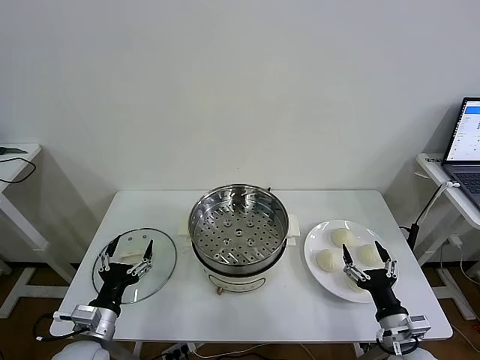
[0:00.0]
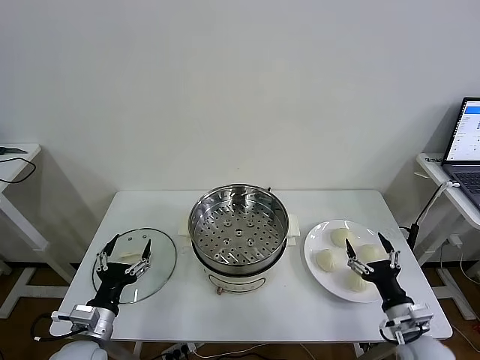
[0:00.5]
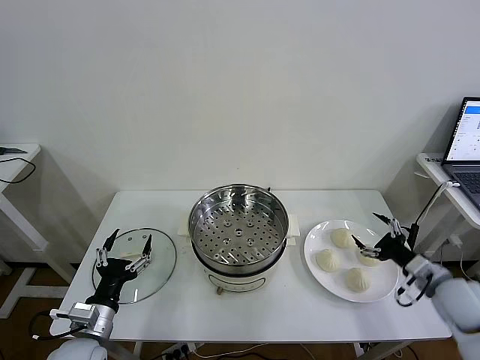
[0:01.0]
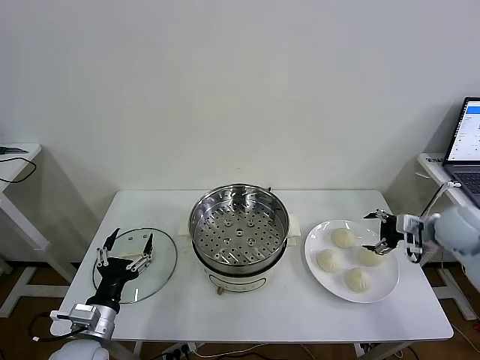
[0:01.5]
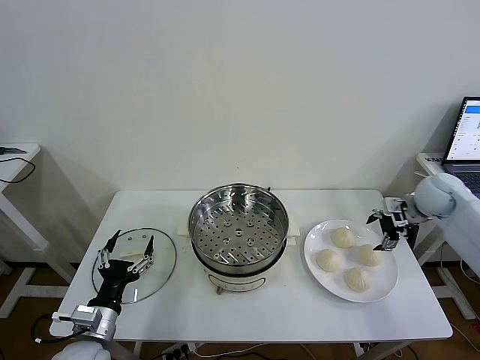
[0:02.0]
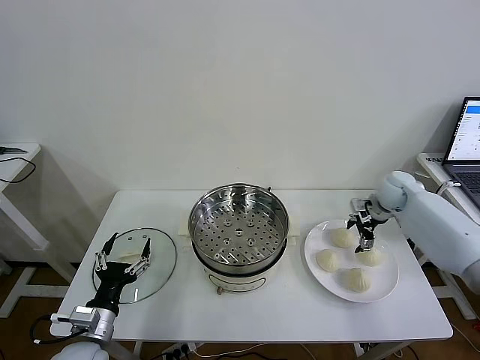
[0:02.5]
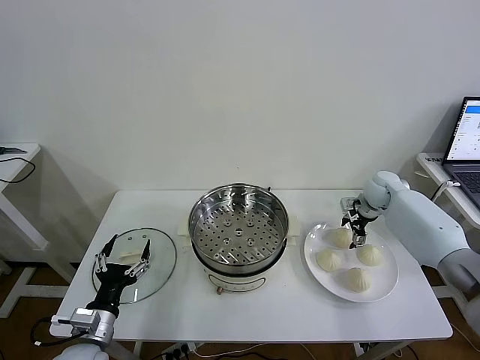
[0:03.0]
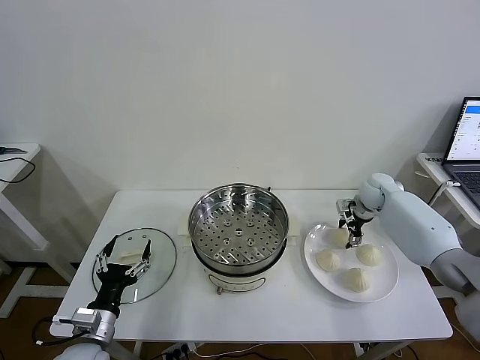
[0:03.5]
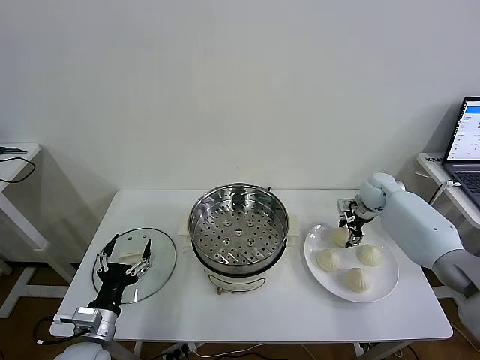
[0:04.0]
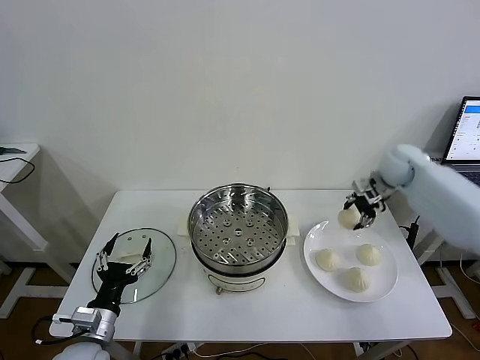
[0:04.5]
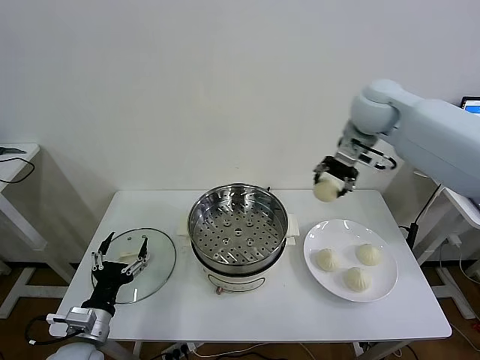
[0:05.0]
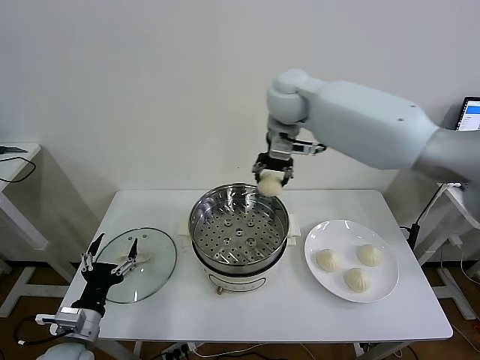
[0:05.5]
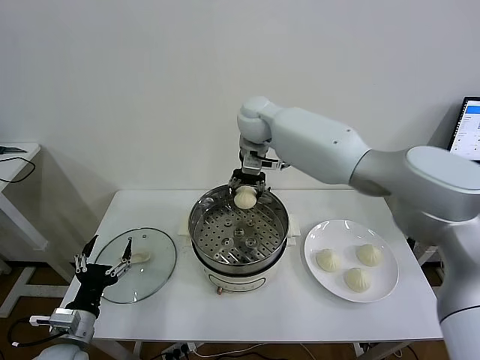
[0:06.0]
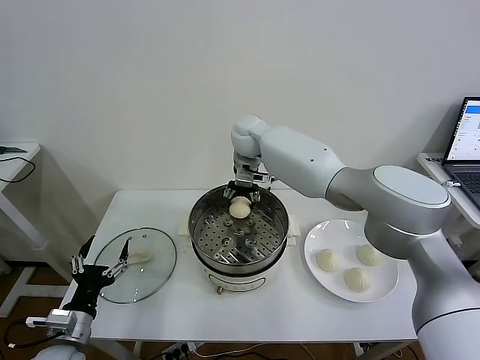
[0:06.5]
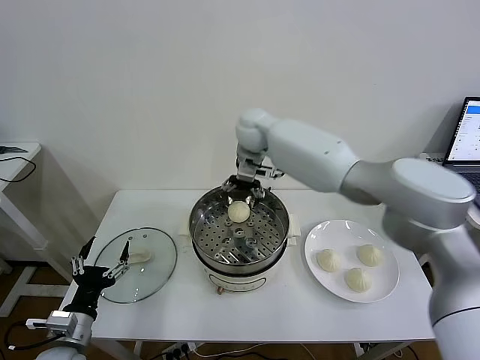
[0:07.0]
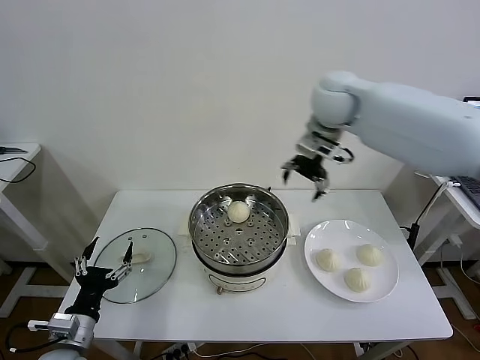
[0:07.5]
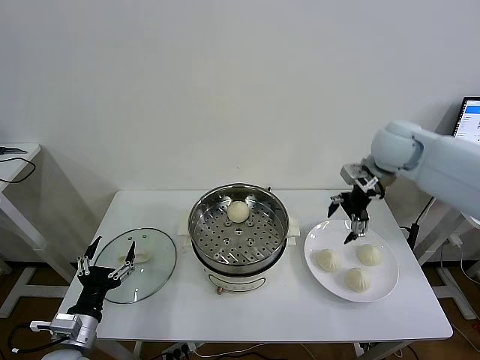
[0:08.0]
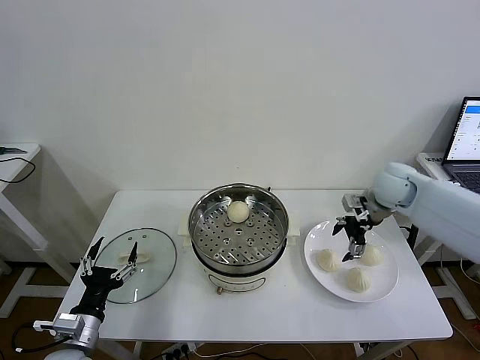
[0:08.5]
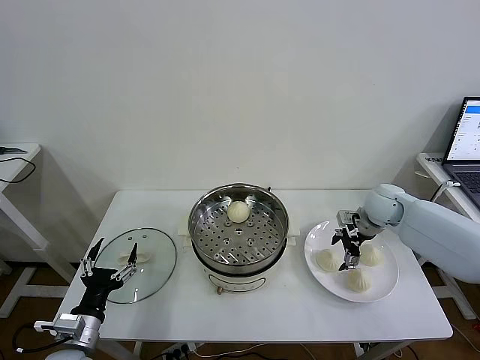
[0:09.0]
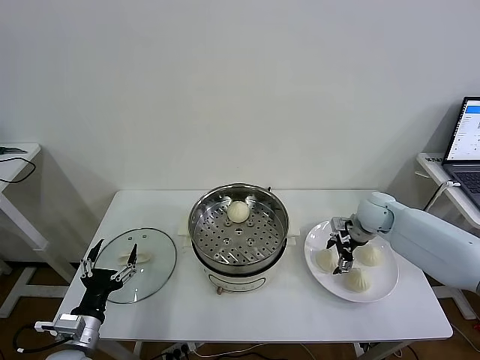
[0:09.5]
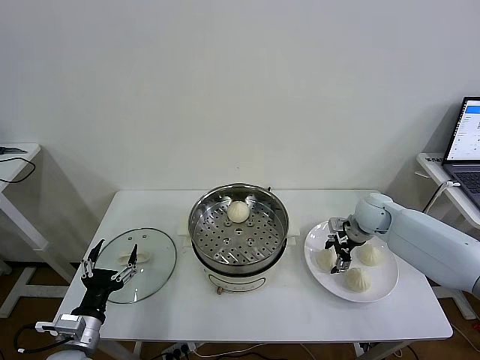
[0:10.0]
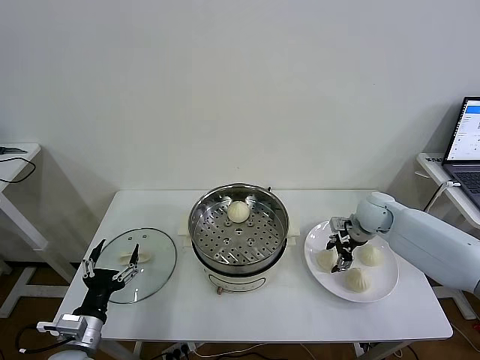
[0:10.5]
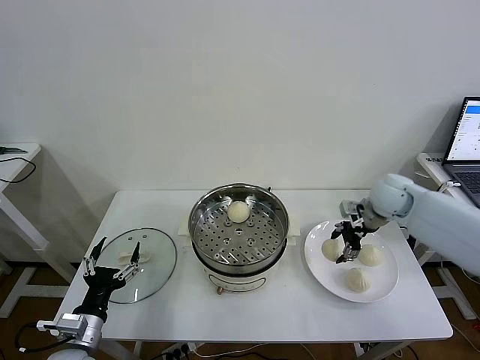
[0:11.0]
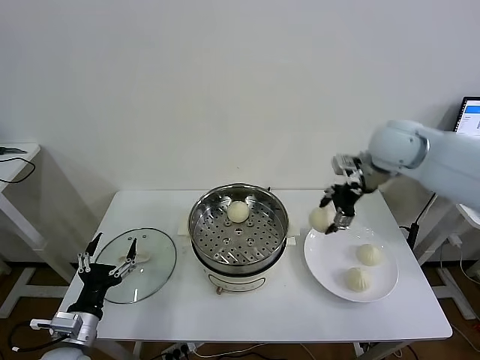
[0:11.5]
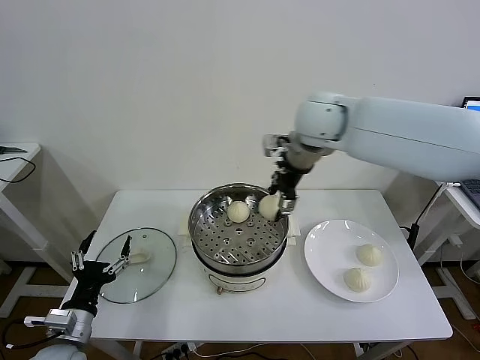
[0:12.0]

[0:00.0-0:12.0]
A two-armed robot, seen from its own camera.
Task of the whole recording: take steamed baozi put them in steamer then cover it.
Step, 0.0 to 3.5 s: Grasp the baozi in the plate with right gripper.
Step, 4.0 to 6.5 s: Place the baozi on the steamer with right gripper.
Step, 7.0 to 10.0 s: Grasp the baozi in the plate with right gripper.
2.0 to 4.0 s: The right gripper changes place by roughly 10 cm, and closes up.
4.0 to 6.0 s: The right gripper goes approximately 40 cm to the left and upward.
6.0 to 8.0 s: The right gripper travels to the right by about 30 cm, and opens its fingers.
8.0 to 10.0 s: The right gripper goes some 15 cm downward, and closes up.
10.0 to 12.0 s: The right gripper heads upward and to the left, covering about 35 cm.

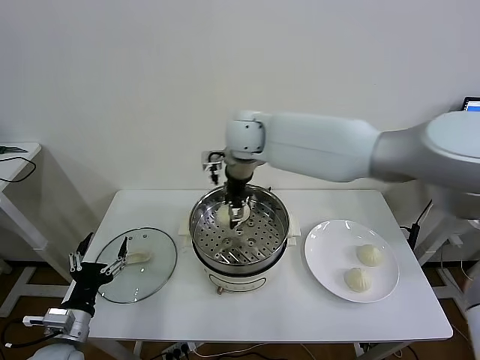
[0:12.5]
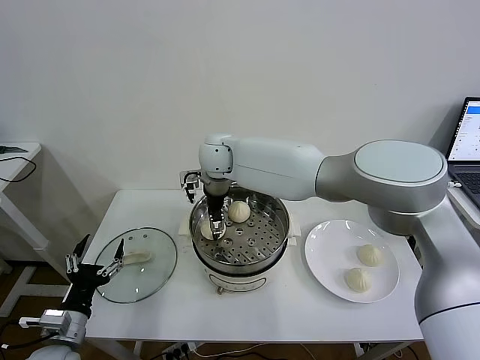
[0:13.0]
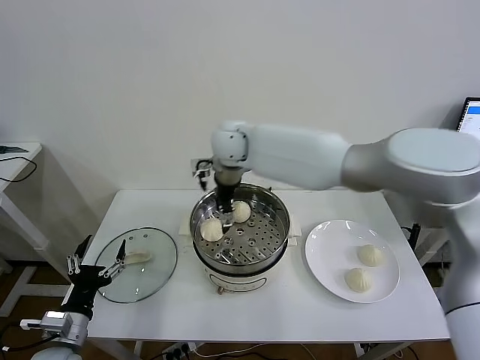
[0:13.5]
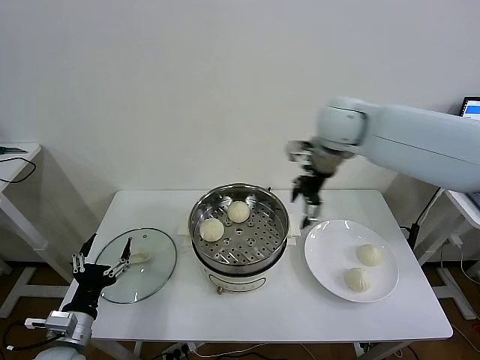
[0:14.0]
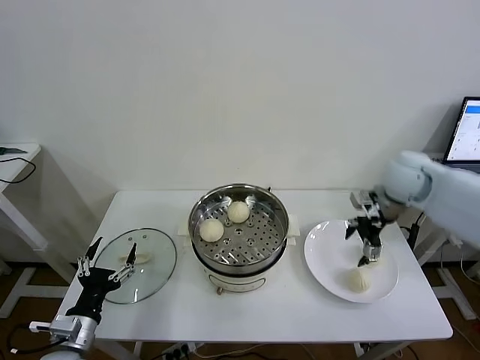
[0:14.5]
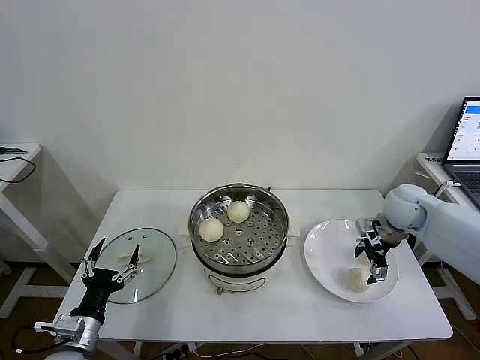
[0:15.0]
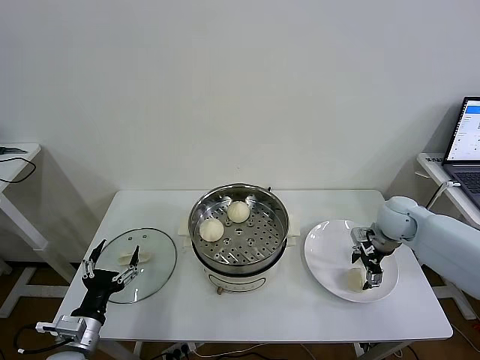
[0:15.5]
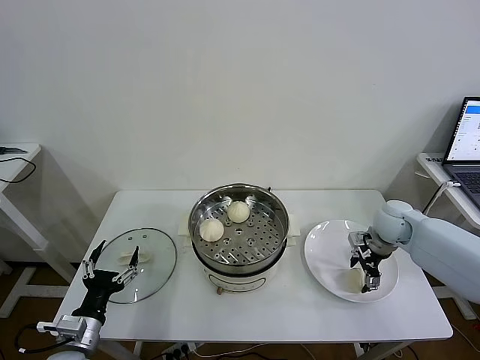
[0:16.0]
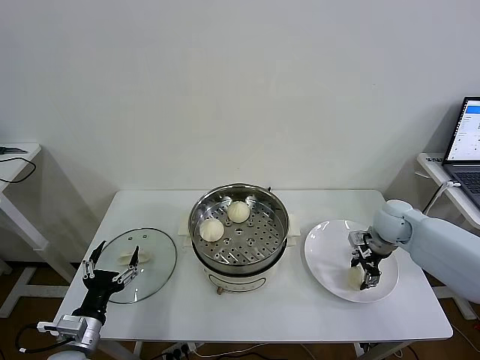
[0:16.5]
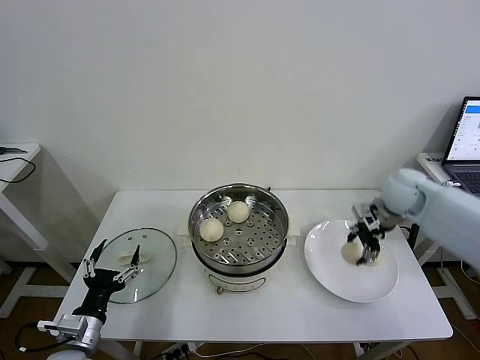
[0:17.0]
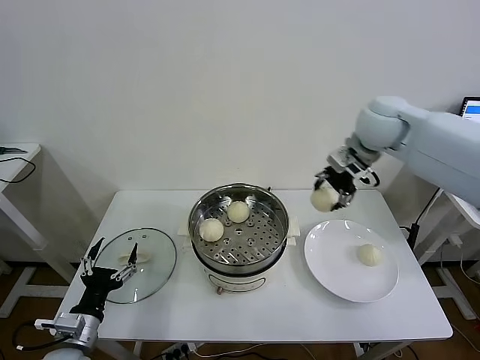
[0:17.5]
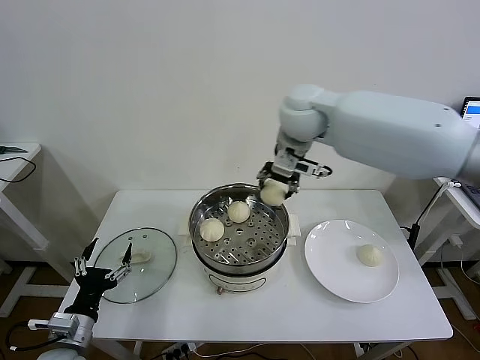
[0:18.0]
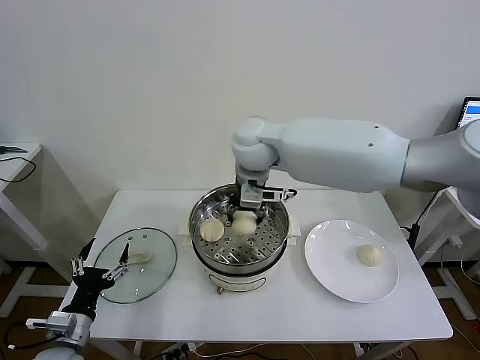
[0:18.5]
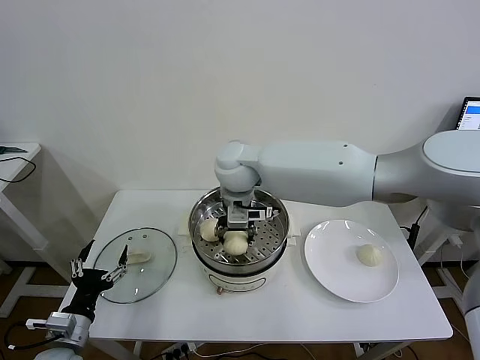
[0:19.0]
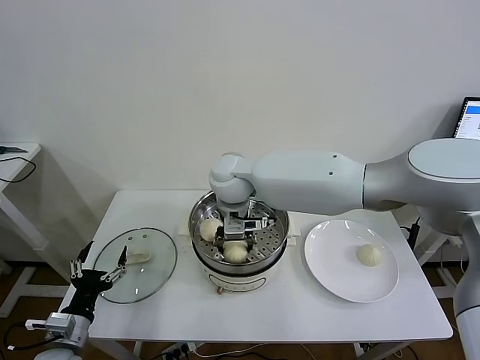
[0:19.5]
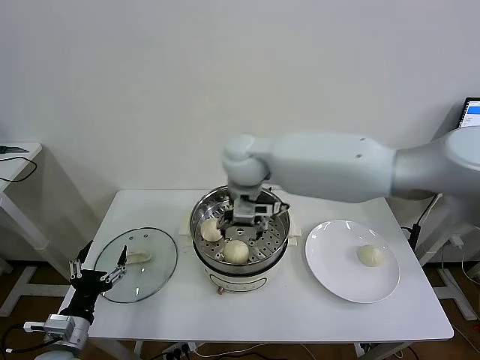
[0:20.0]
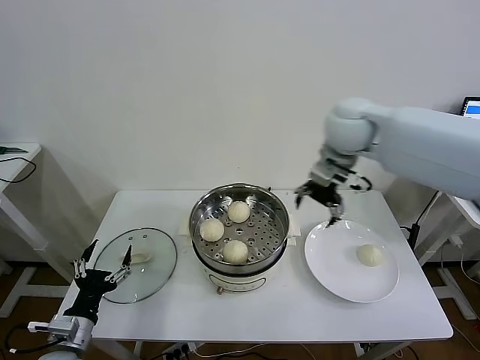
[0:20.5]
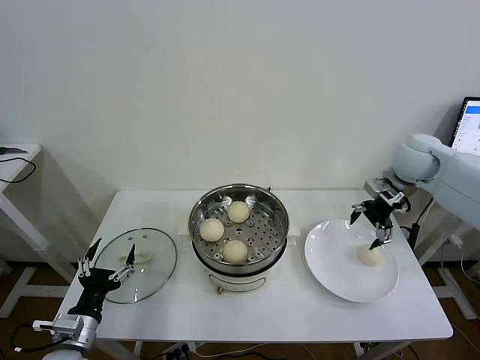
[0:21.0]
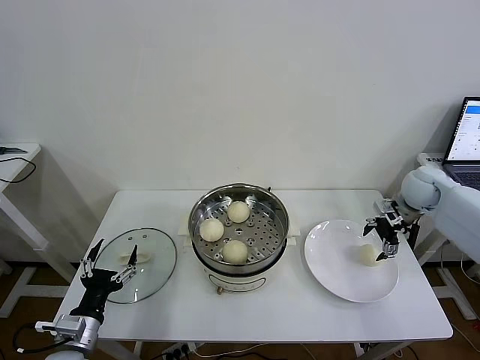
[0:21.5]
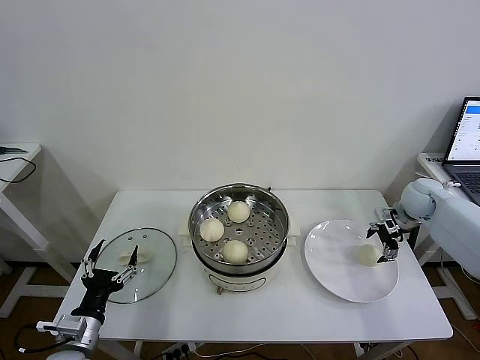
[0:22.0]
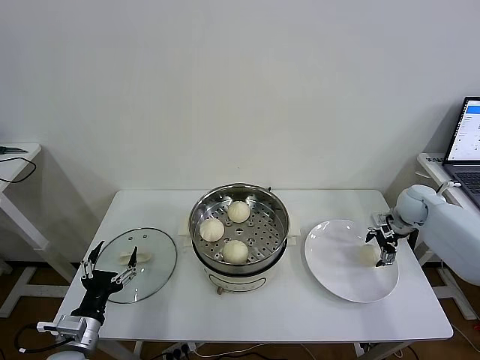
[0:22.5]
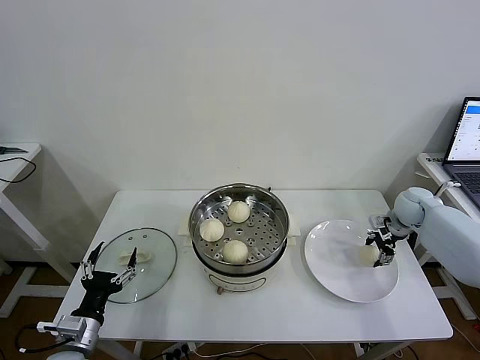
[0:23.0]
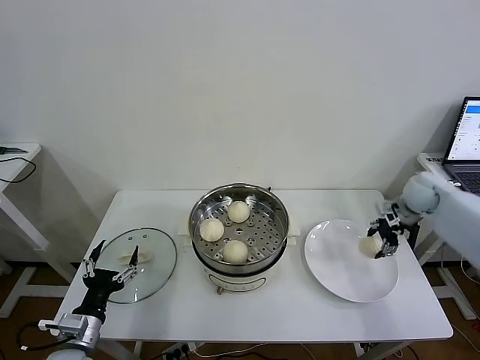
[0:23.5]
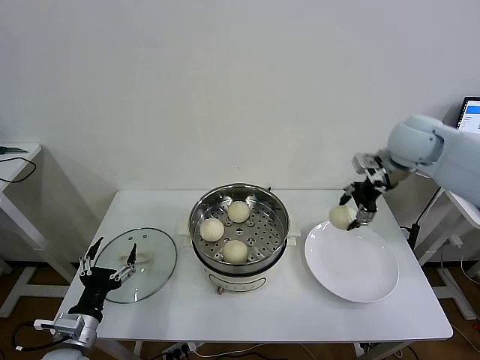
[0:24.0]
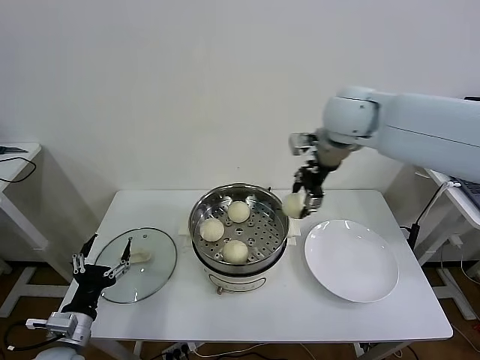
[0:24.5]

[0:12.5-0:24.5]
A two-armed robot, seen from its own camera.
Task of the whole recording: take steamed baozi put them in steamer then cover it.
Step, 13.5 to 16.0 s: Grasp the baozi in the plate with right gripper.
Step, 16.5 to 19.5 s: Place the baozi on the steamer with right gripper.
Step, 20.0 to 23.0 s: Grasp the baozi in the plate with right gripper.
12.5 to 14.5 s: The right gripper travels to the right by roughly 40 cm, and opens its fingers.
14.5 to 16.5 s: The right gripper travels downward by about 10 cm, and closes its fingers.
16.5 to 18.5 s: The right gripper is displaced to the left and upward by approximately 40 cm.
18.5 to 20.5 s: The right gripper moves to the right, some 25 cm, and opens.
20.5 to 22.5 s: The right gripper travels downward and to the right by some 30 cm.
22.5 to 24.5 s: The right gripper moves to the left and upward, approximately 40 cm, and closes its fingers.

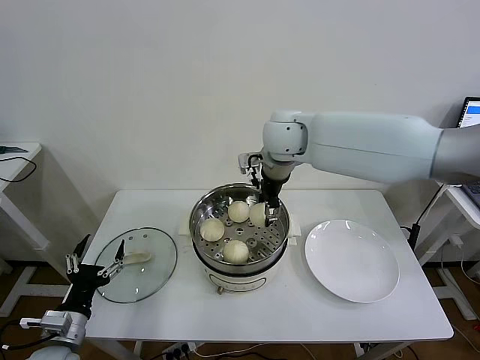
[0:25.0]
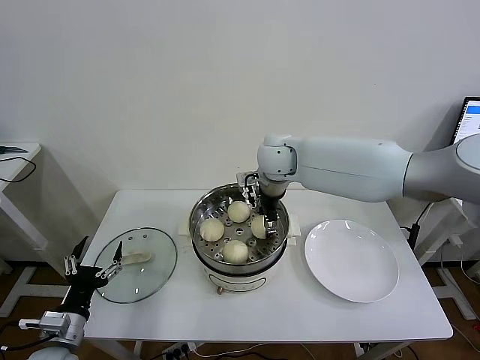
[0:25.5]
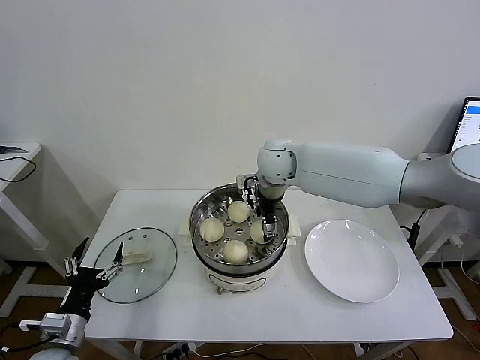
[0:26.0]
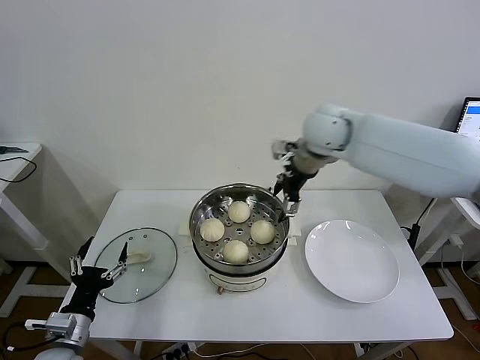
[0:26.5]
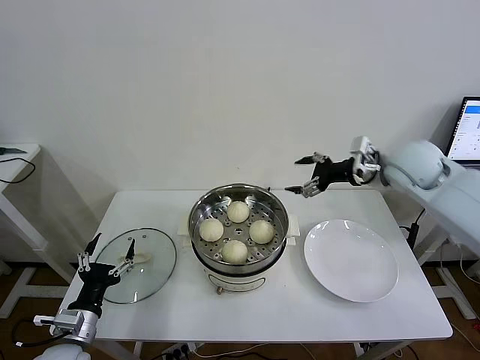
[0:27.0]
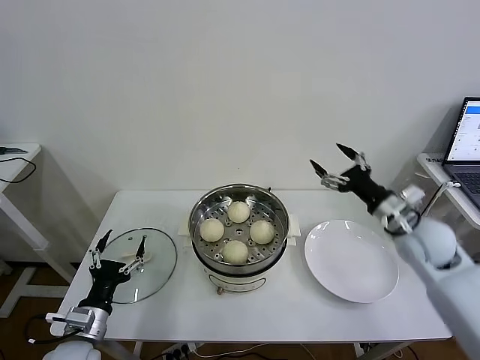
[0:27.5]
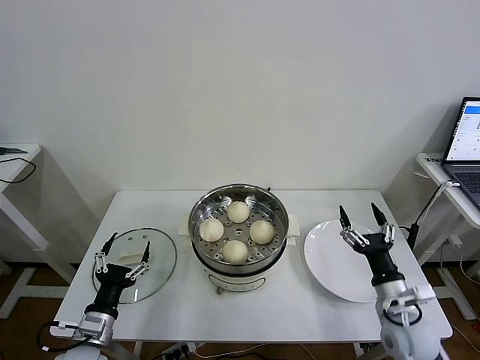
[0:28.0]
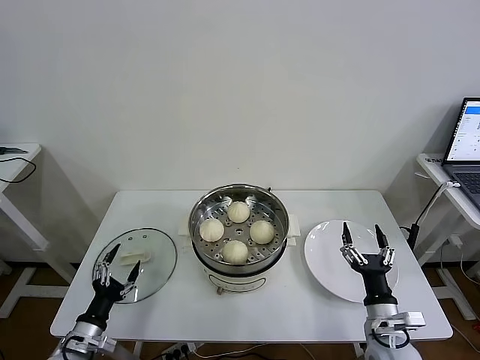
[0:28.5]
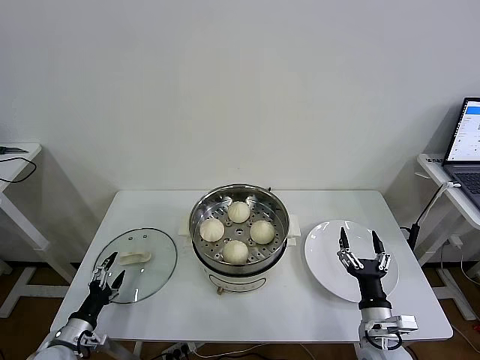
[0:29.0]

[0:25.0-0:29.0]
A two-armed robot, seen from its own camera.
Task of the whole recording: take steamed baozi put them in steamer then cover it.
25.0 to 27.0 s: The right gripper moves to the right, about 25 cm, and opens its fingers.
27.0 to 29.0 s: The right gripper goes some 40 cm downward and backward. Meanwhile the left gripper is displaced downward and to the left by about 15 cm.
